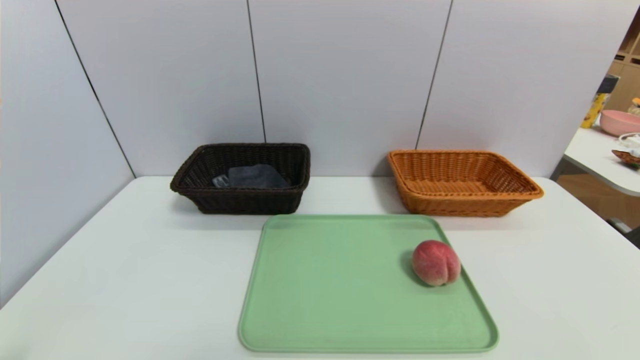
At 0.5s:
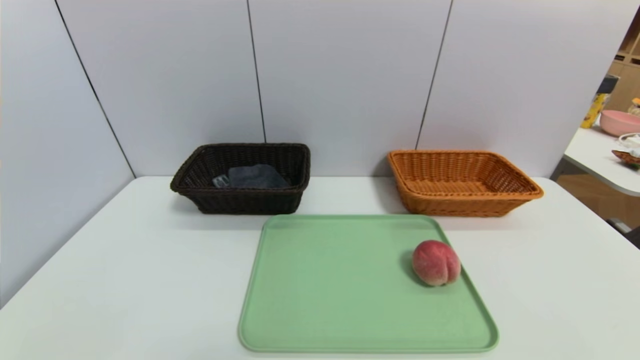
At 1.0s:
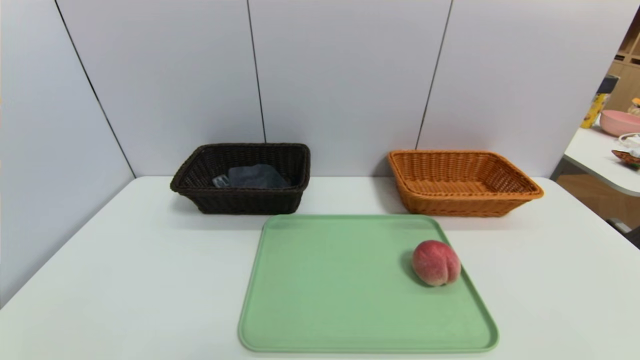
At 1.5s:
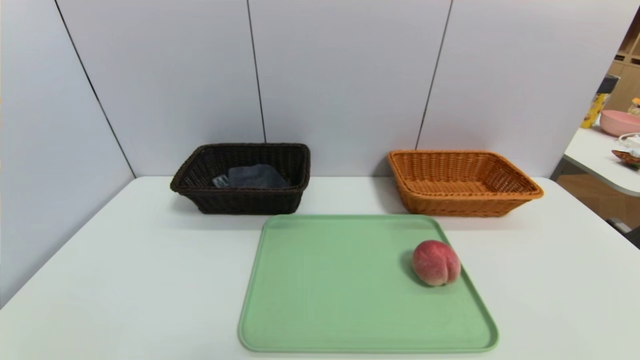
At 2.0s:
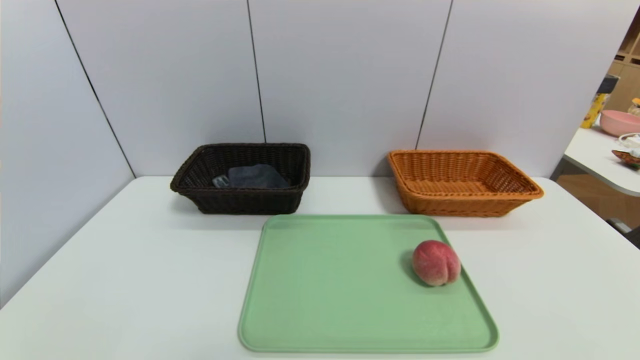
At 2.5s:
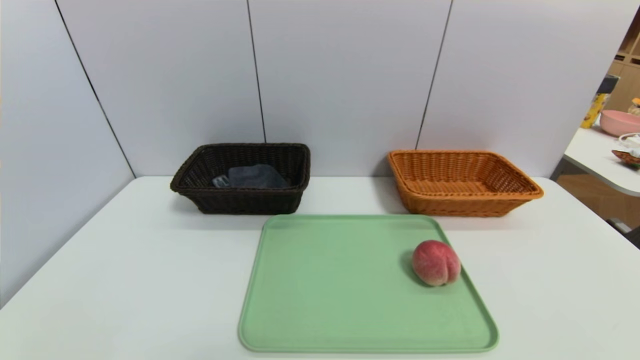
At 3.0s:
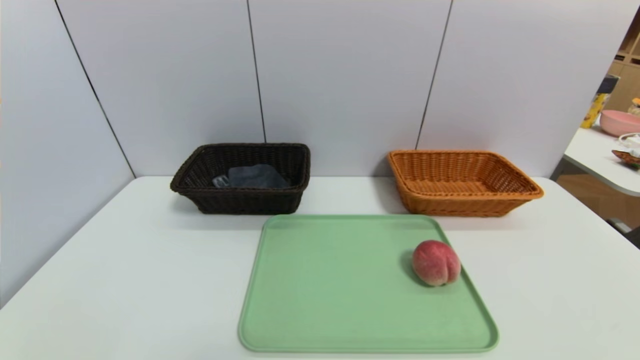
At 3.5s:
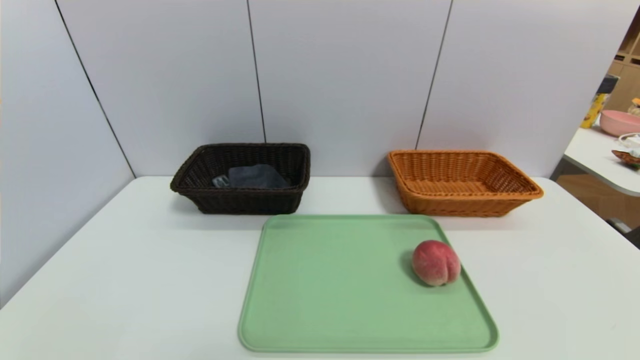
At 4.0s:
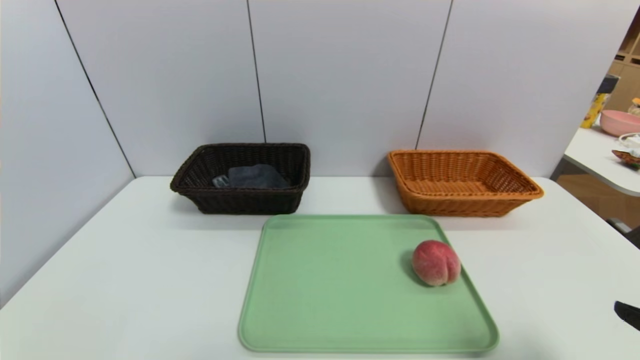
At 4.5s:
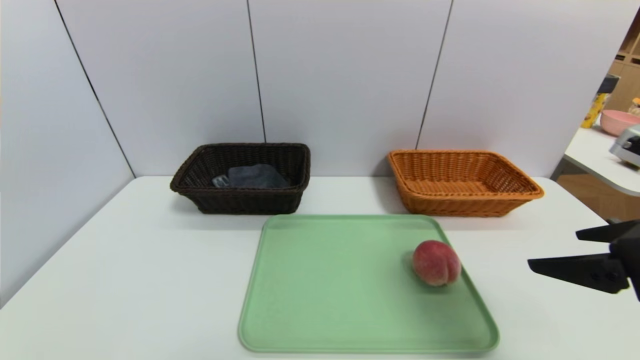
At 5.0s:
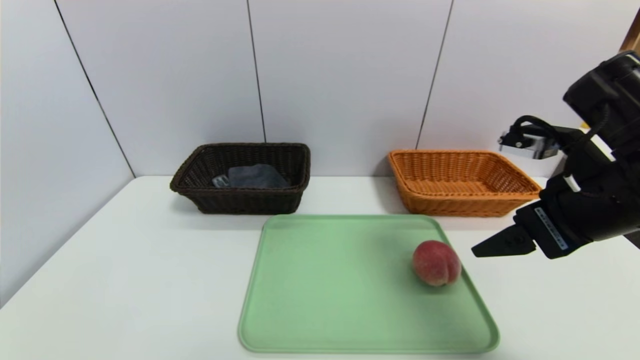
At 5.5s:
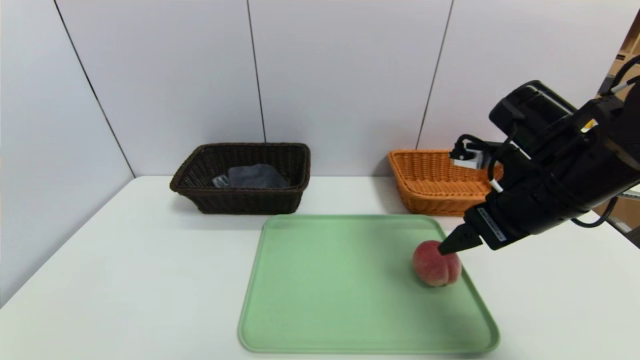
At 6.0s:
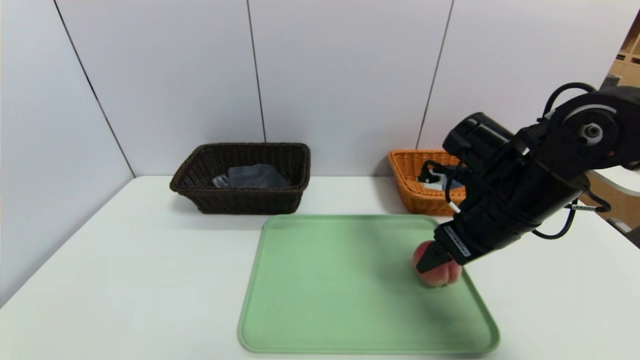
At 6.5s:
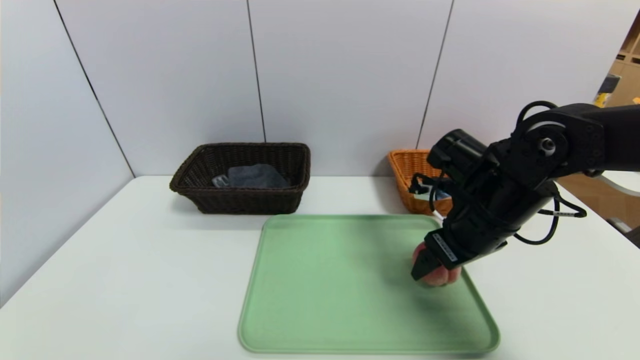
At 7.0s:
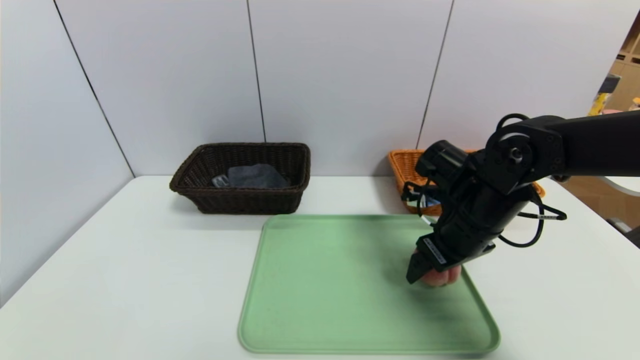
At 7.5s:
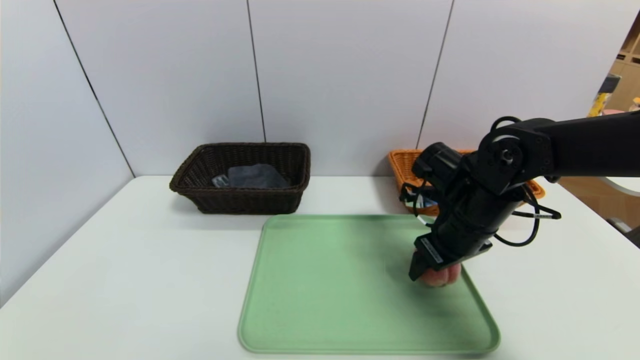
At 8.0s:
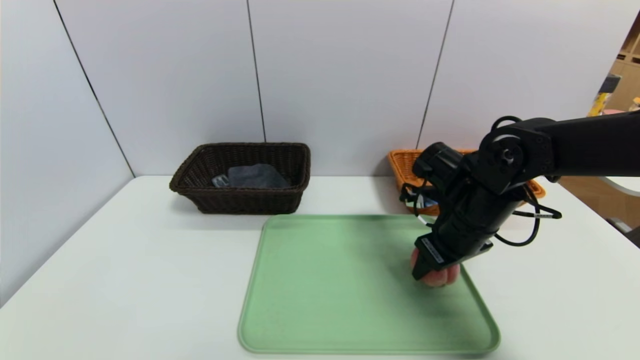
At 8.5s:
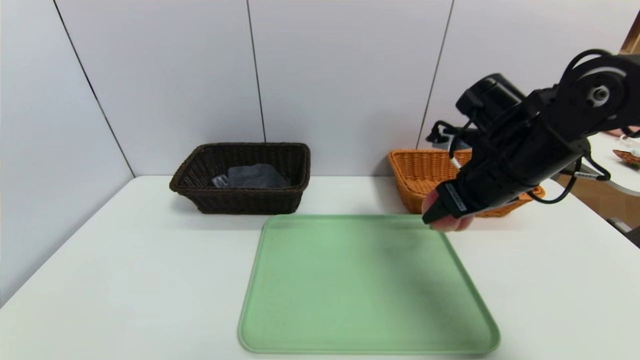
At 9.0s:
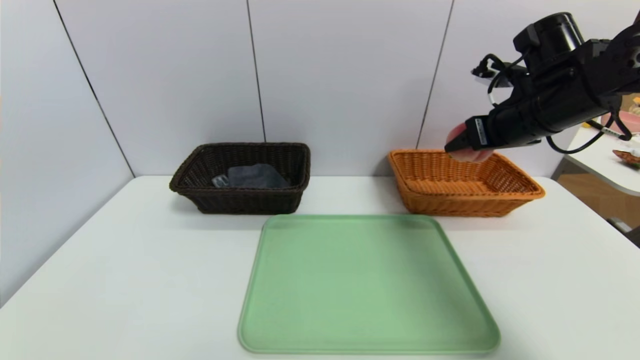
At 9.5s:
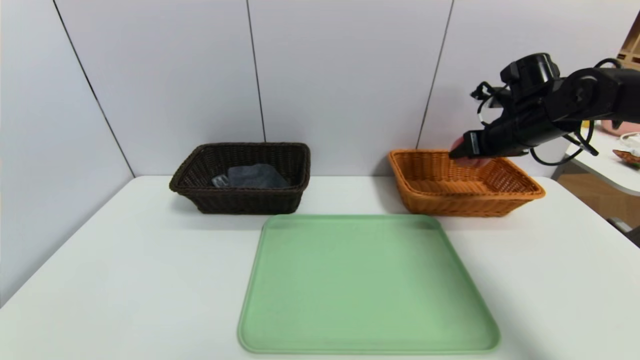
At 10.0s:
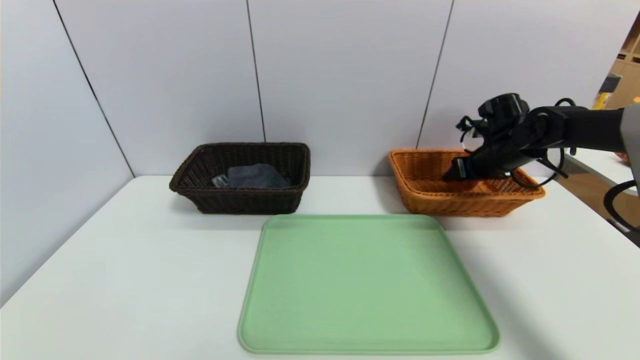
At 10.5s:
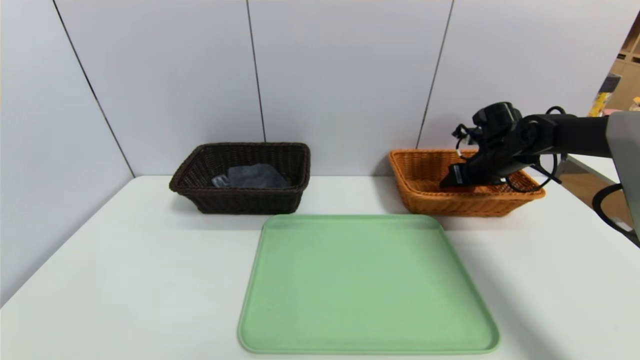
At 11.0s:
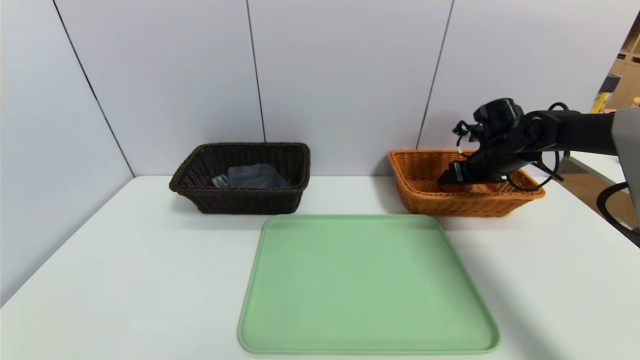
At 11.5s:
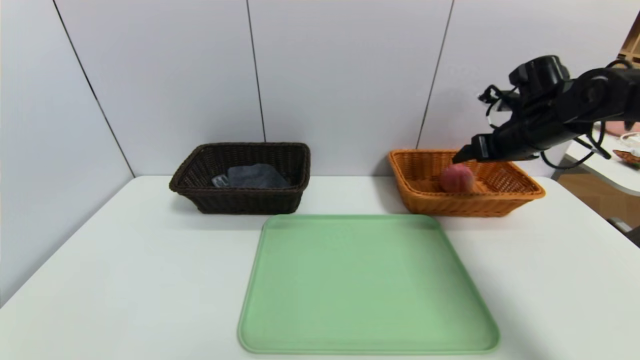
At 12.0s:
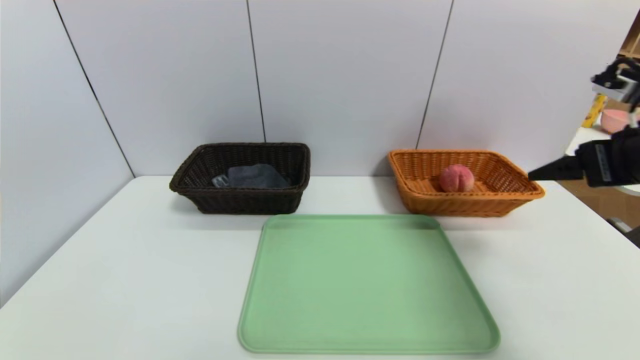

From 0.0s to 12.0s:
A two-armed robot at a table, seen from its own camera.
Task of the whole recording: place the food in the right basket with the right gripper, and place the non food items in the left basket with the left gripper.
Step, from 0.0s to 11.0s: Grasp the peach and put it in the right basket.
From 2.0s to 4.0s: The right gripper moves upward and forward, approximately 15 cm.
From 4.0s to 6.0s: The right gripper heads forward and to the left, covering approximately 25 cm.
From 6.0s to 8.0s: The right gripper moves about 5 cm, and closes.
From 8.0s to 10.0s: The right gripper travels forward and to the right by approximately 20 cm.
From 10.0s to 12.0s: The right gripper goes roughly 25 cm backward and upward, and opens up.

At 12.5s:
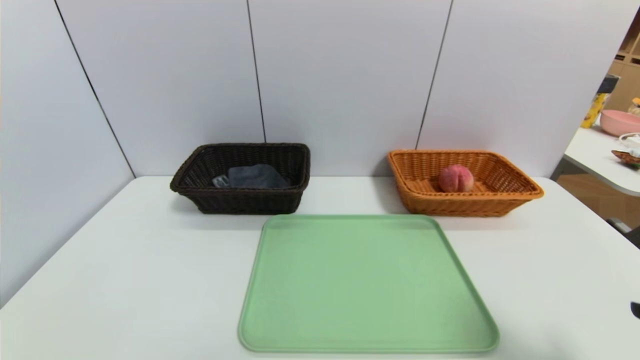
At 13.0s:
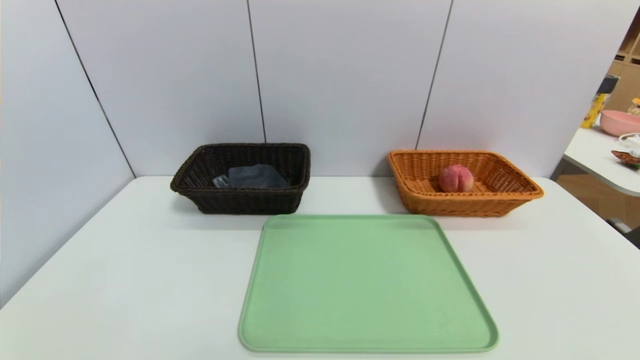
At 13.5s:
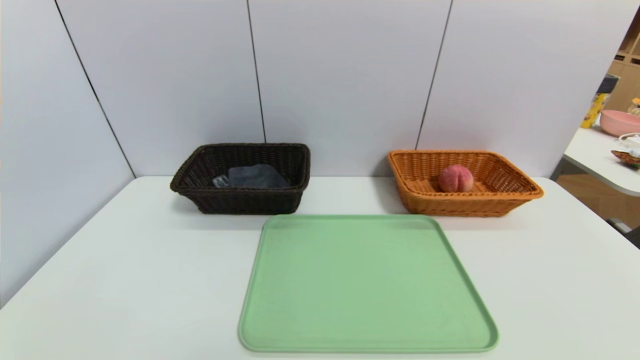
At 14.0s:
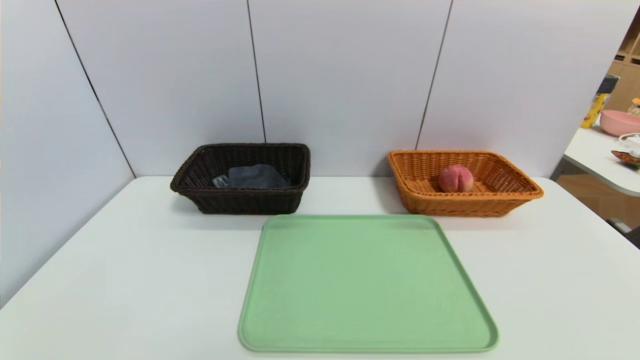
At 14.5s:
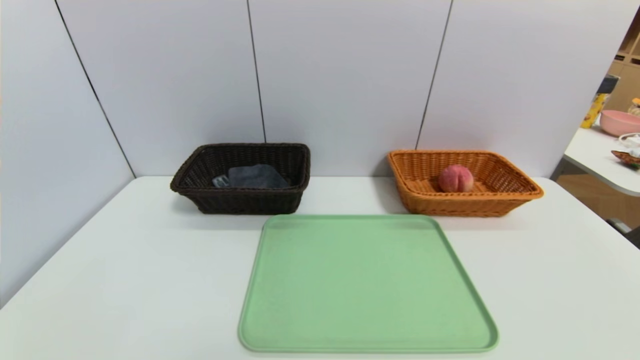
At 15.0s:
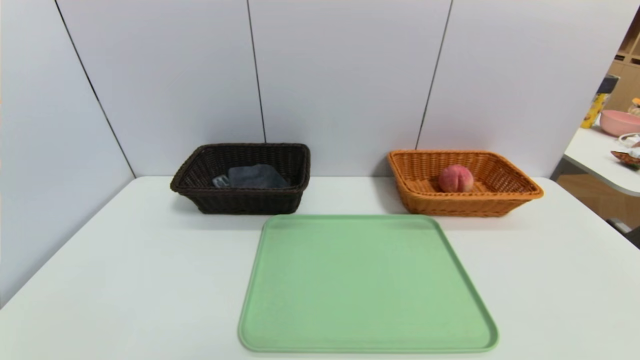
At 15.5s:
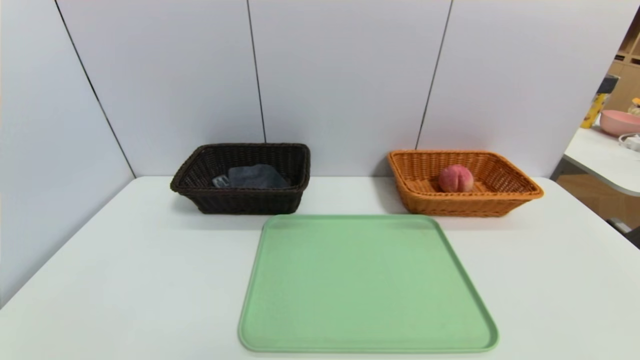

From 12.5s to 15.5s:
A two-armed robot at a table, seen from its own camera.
Task of the whole recording: place the food in the right basket with the right gripper, and place the non food items in the left basket with the left gripper.
From 12.5s to 14.0s: The right gripper is displaced downward and backward by approximately 20 cm.
From 14.0s to 15.5s: Neither gripper changes place.

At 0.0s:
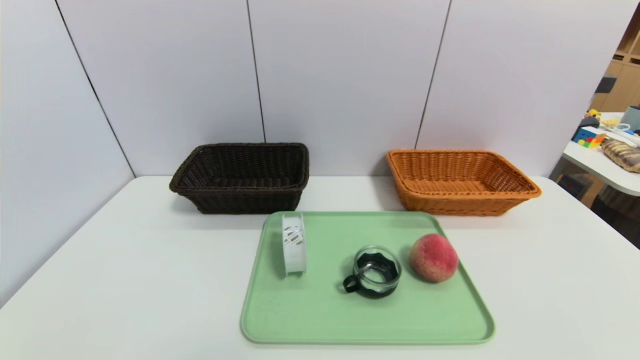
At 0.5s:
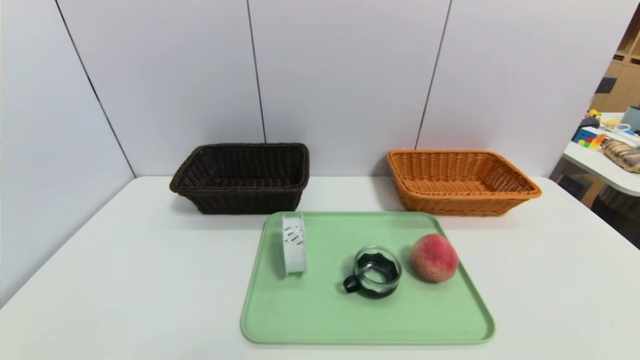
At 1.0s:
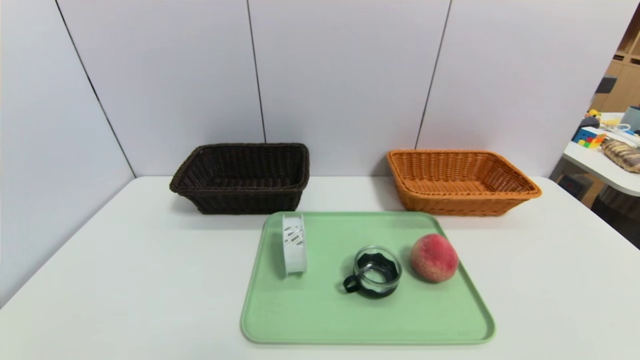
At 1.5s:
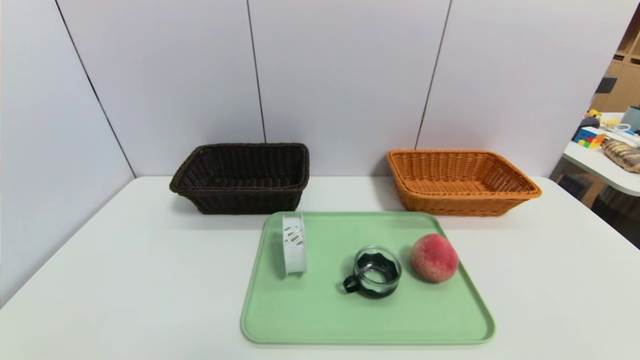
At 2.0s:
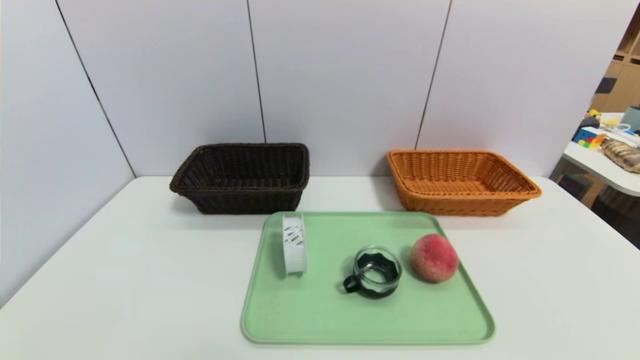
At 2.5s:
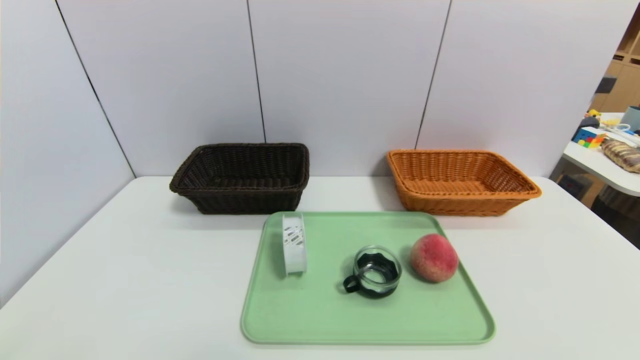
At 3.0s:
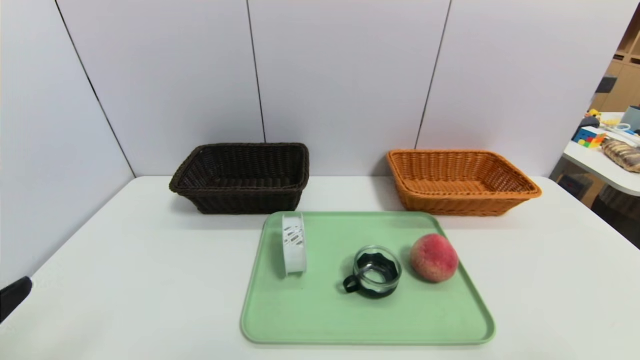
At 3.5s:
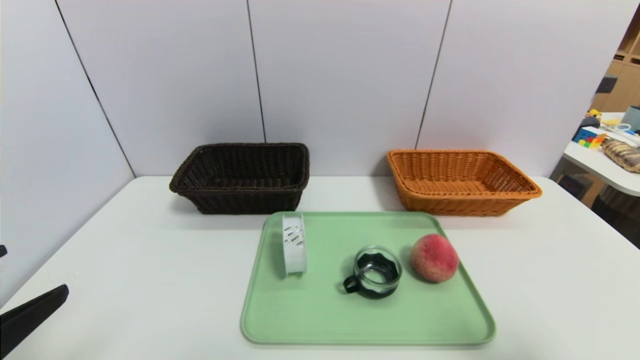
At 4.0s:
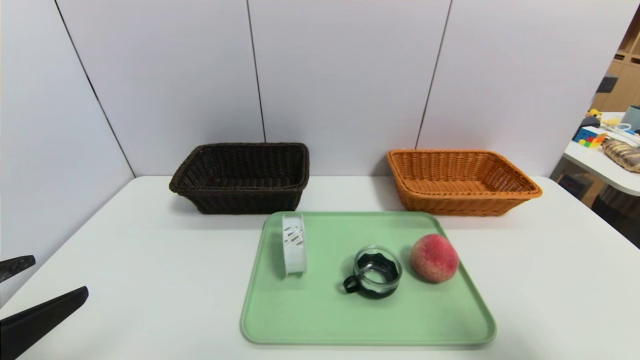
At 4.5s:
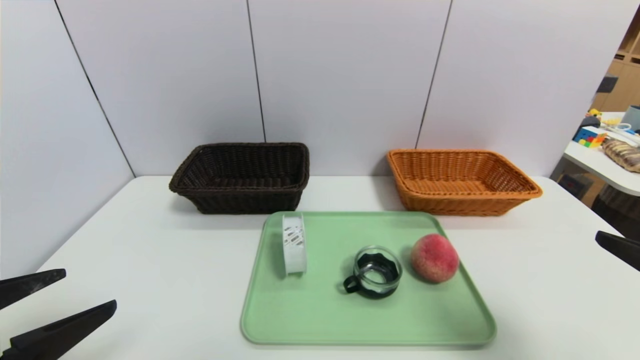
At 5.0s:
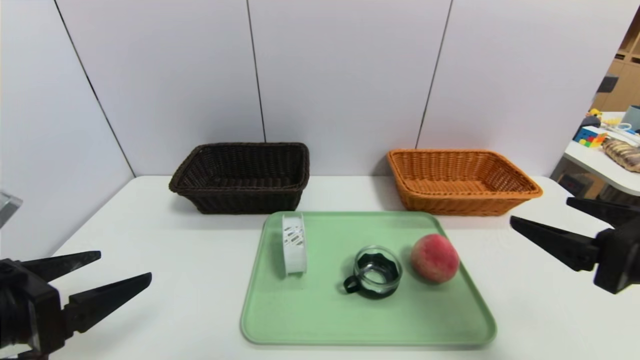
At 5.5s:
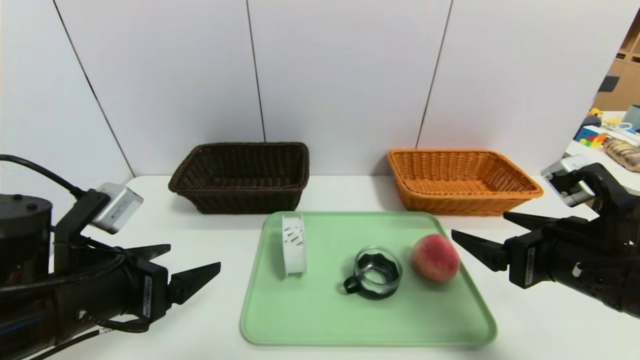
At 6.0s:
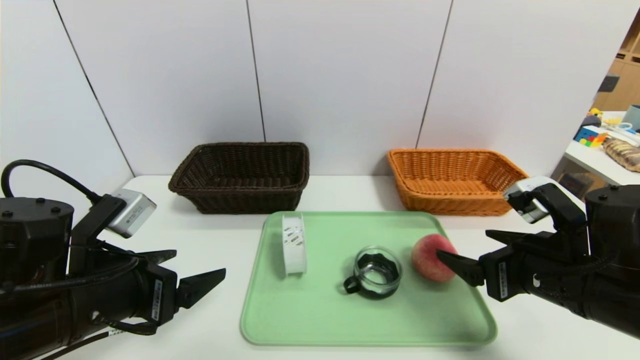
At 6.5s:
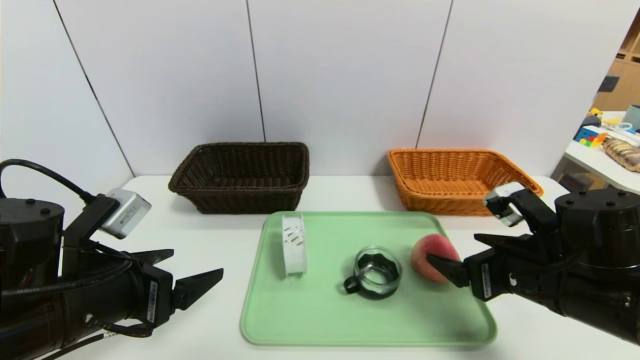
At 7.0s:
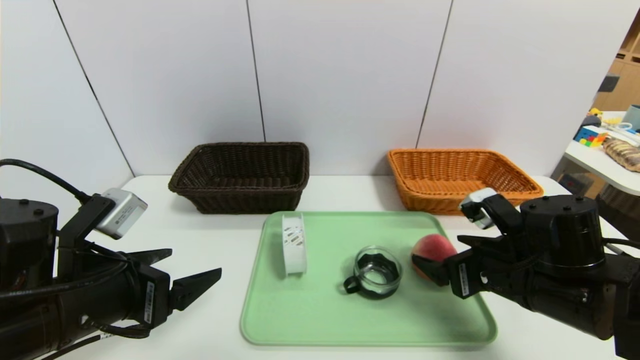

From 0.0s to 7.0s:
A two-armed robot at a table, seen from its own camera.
Task of the whole recording: place the food in the right basket with the right gripper, and place the non food items in the left basket with the left gripper.
From 2.0s to 3.5s: The grippers both shift upward and forward by about 15 cm.
From 3.5s to 5.0s: The right gripper moves forward and to the left, roughly 10 cm. The left gripper heads forward, covering roughly 5 cm.
From 5.0s to 7.0s: The left gripper moves roughly 5 cm, while the right gripper heads downward, forward and to the left, covering about 15 cm.
